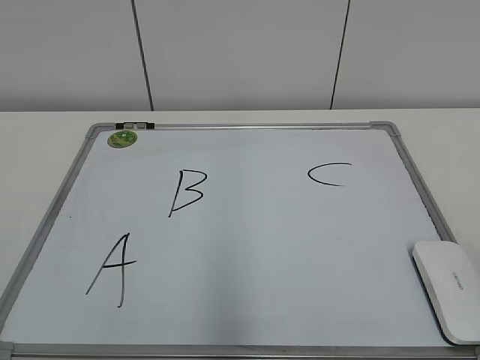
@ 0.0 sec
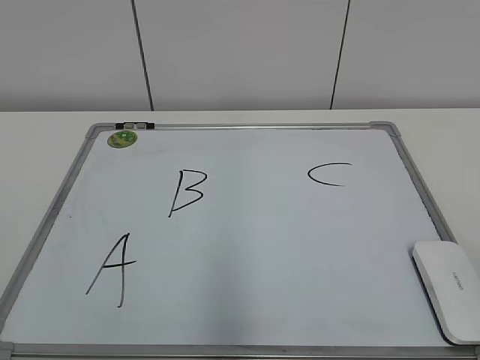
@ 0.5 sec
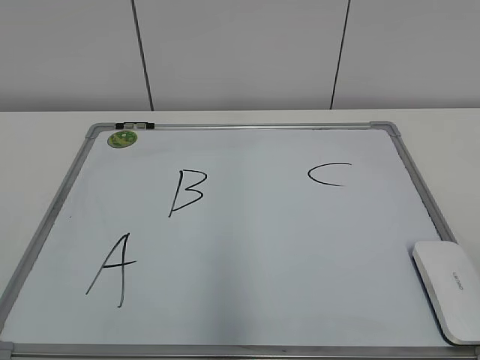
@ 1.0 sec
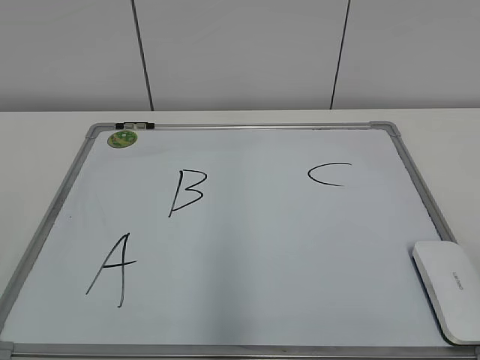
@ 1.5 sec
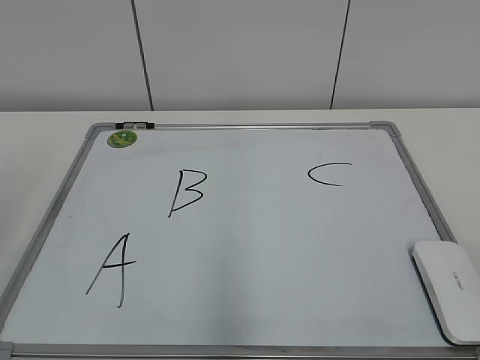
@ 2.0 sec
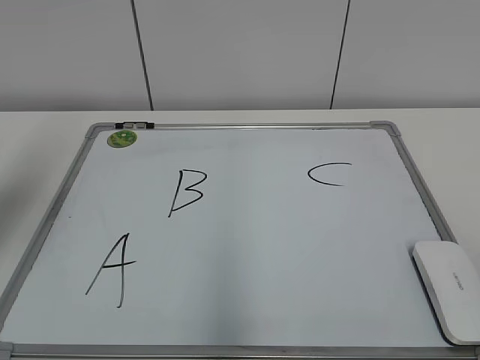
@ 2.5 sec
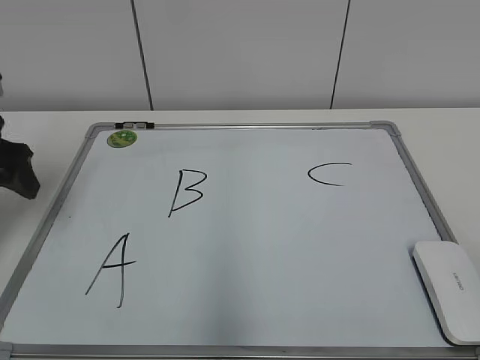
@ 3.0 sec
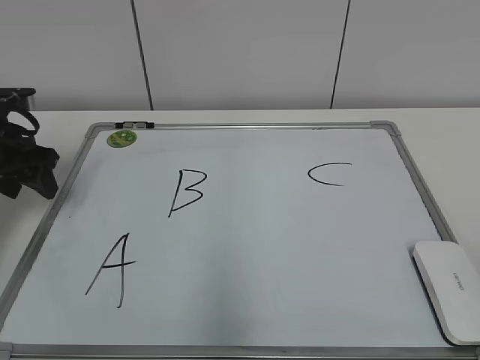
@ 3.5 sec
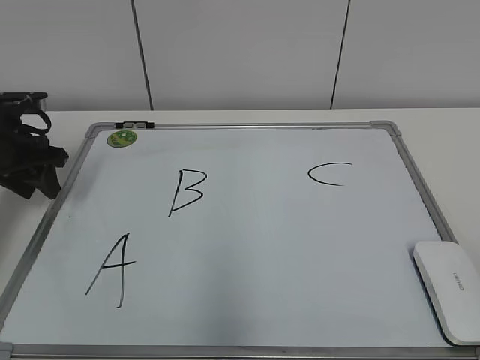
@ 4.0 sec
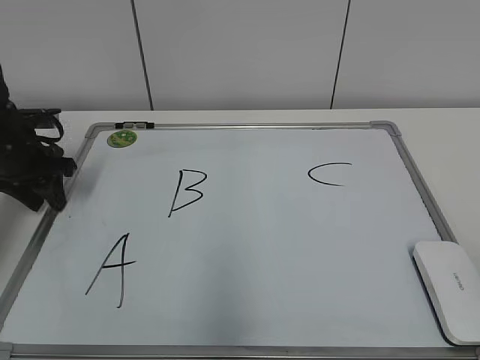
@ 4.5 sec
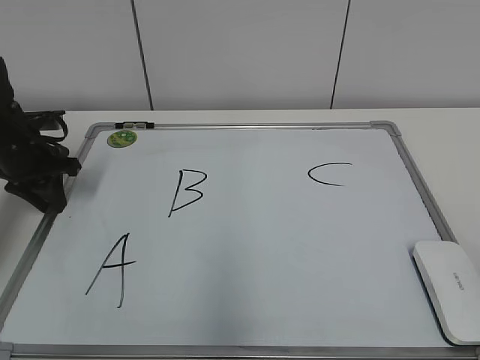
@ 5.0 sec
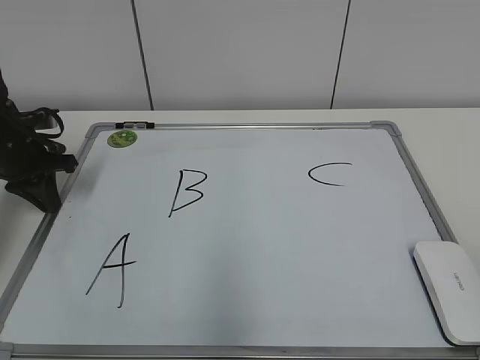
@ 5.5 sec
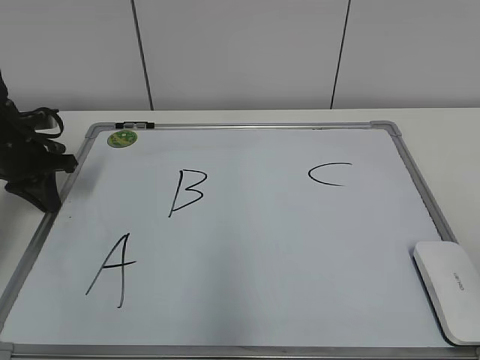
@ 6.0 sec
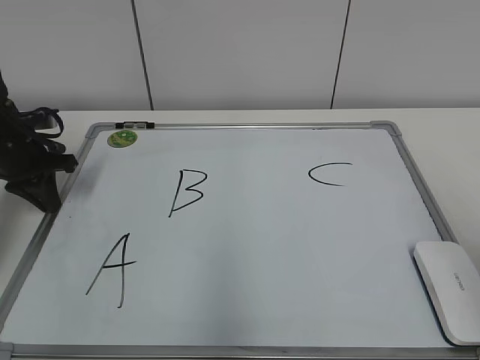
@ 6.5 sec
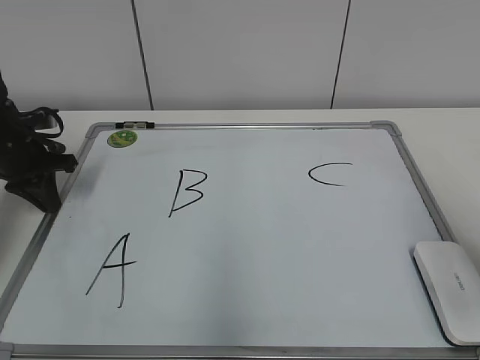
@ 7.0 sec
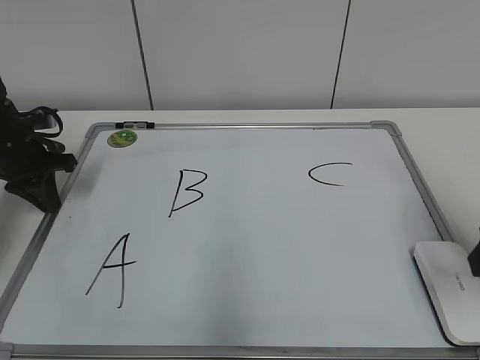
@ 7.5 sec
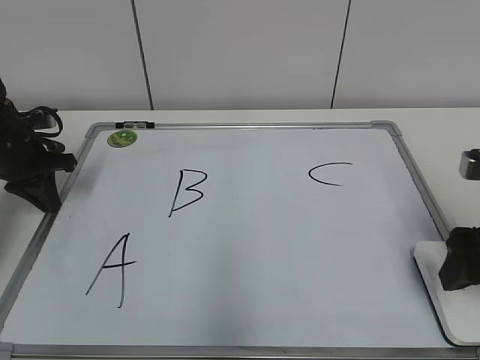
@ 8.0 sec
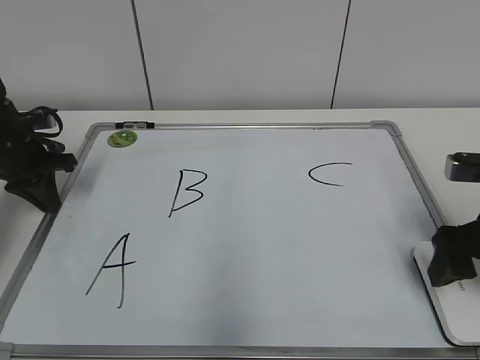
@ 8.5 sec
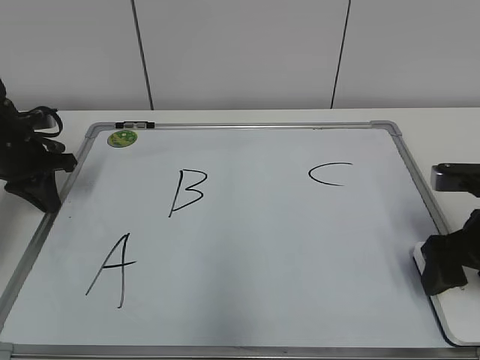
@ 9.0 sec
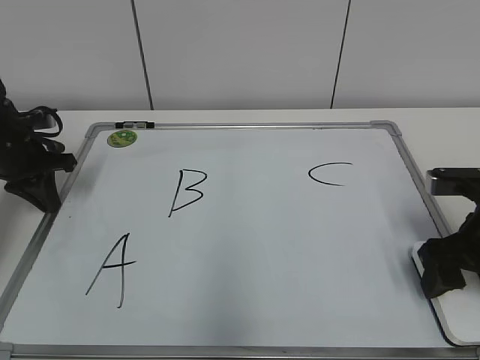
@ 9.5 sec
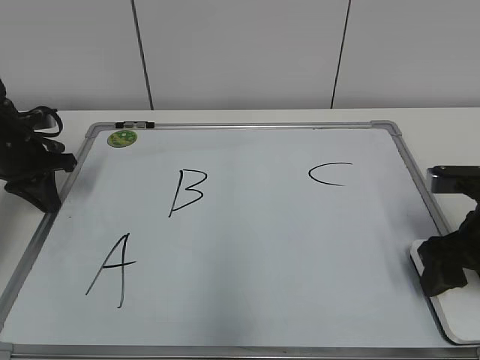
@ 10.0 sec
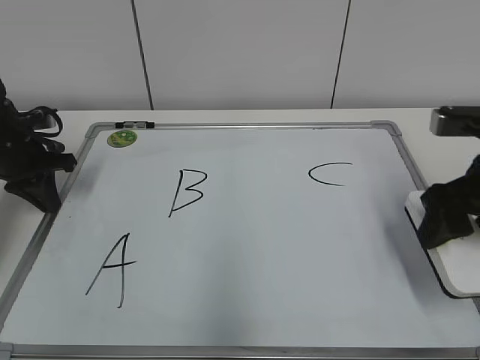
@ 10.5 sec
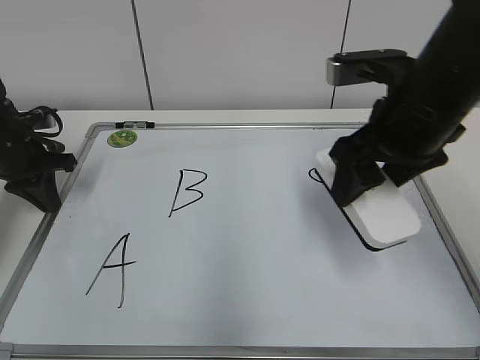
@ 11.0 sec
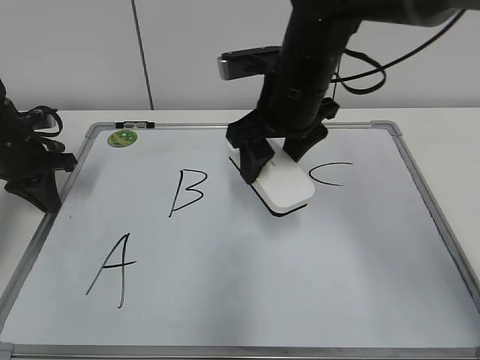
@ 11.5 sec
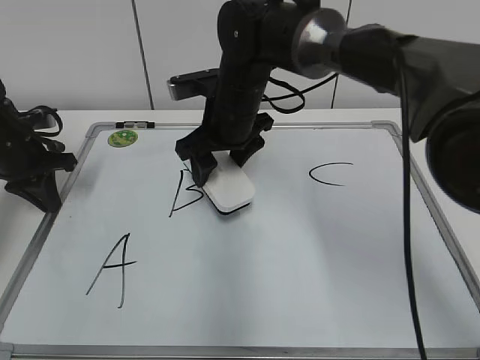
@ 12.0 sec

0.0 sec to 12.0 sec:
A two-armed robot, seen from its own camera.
Task of the whole recording: pick up the eraser on the blackboard and erase the letter "B".
Step, 0.0 sec to 5.5 sec: Hold the drawing board steady with your left hand.
Step, 6.0 sec to 9.5 sec: Grab the eraser with your right hand.
2.0 sec to 4.0 sec: The left gripper is displaced forward and downward by roughly 35 cm, and closes.
4.0 sec to 6.0 sec: The left gripper closes its fingers.
6.0 sec to 8.0 sec: The right gripper moves forward and downward, roughly 25 cm, and opens its fingers.
8.0 sec to 10.0 sec: The right gripper closes up.
10.0 sec to 12.0 sec: The right gripper shifts approximately 30 cm to the left and forward.

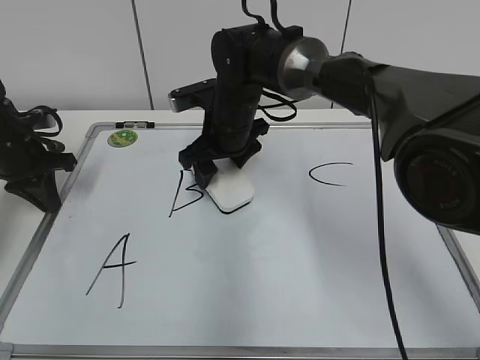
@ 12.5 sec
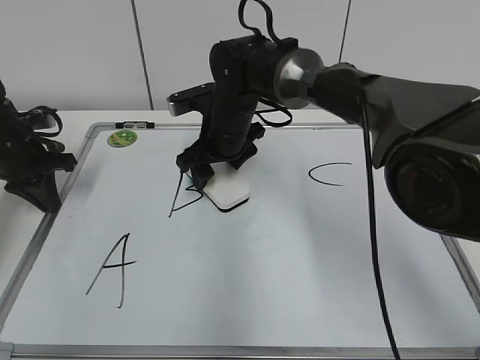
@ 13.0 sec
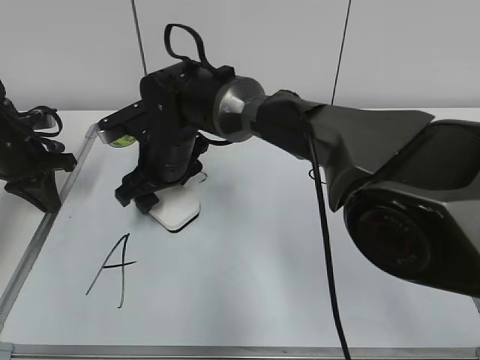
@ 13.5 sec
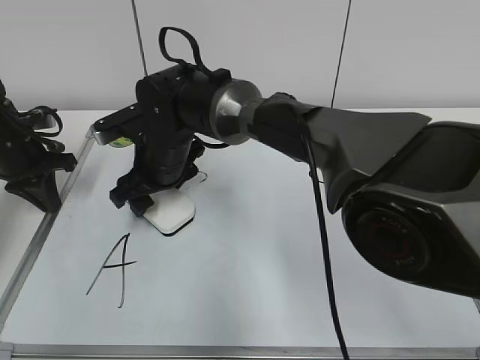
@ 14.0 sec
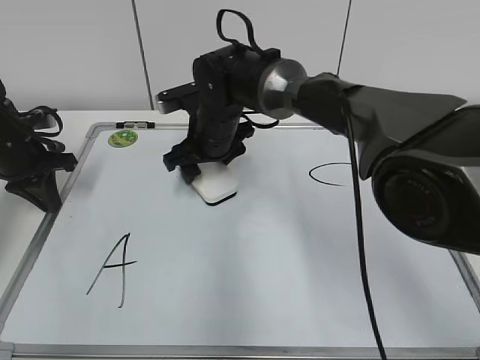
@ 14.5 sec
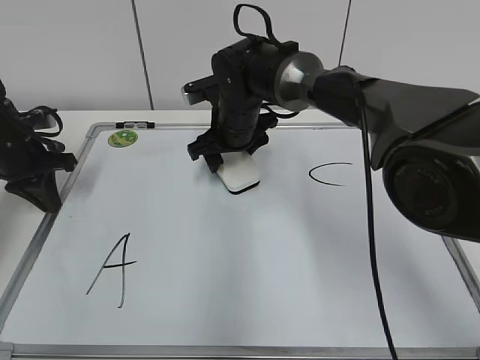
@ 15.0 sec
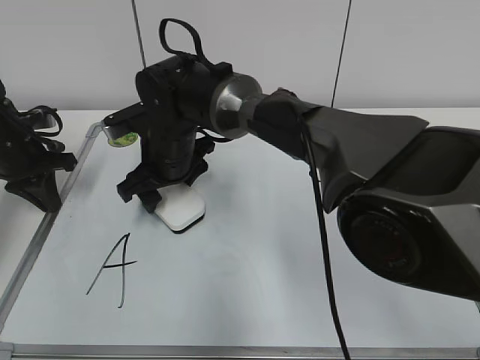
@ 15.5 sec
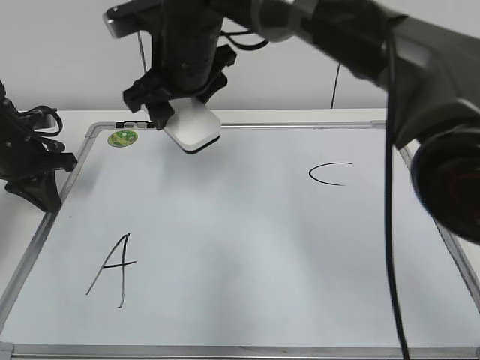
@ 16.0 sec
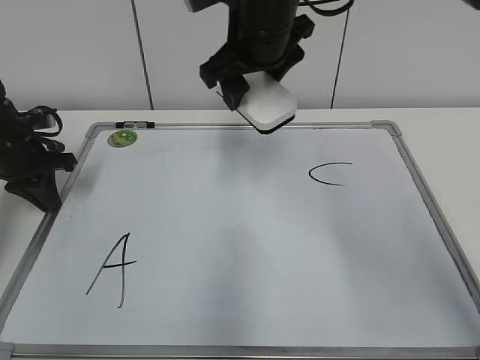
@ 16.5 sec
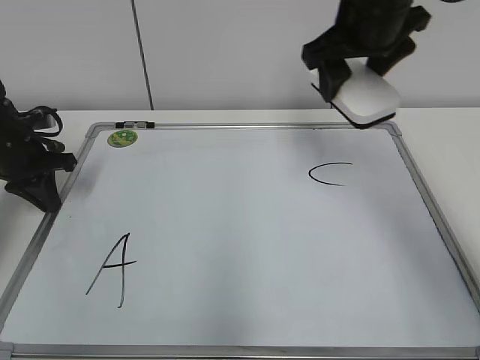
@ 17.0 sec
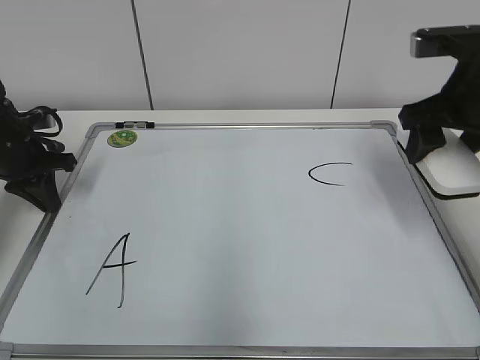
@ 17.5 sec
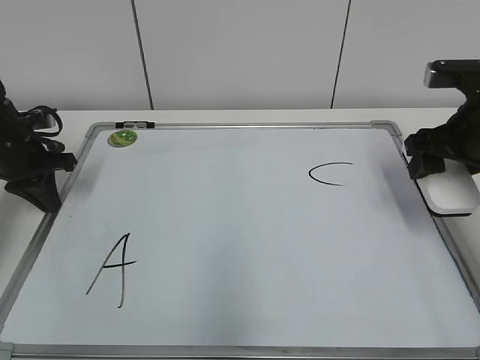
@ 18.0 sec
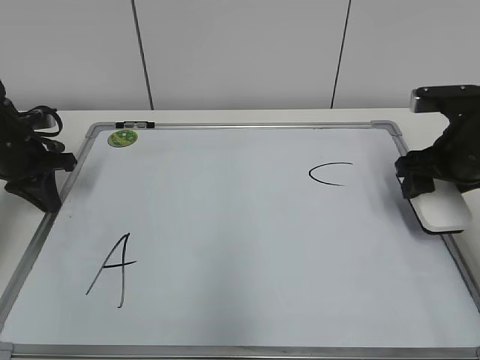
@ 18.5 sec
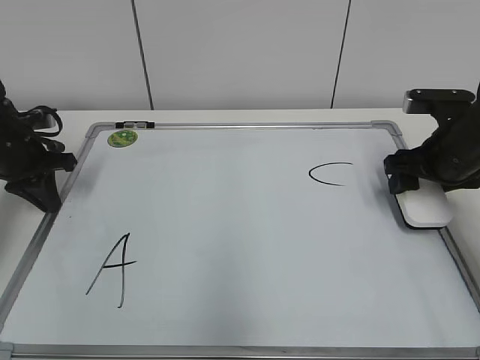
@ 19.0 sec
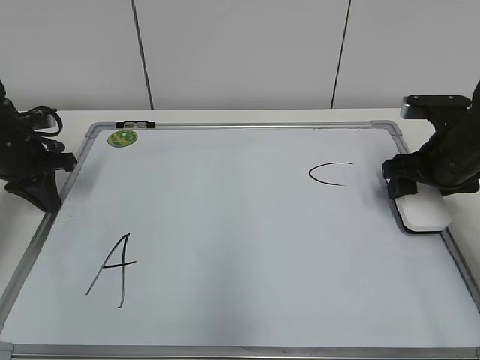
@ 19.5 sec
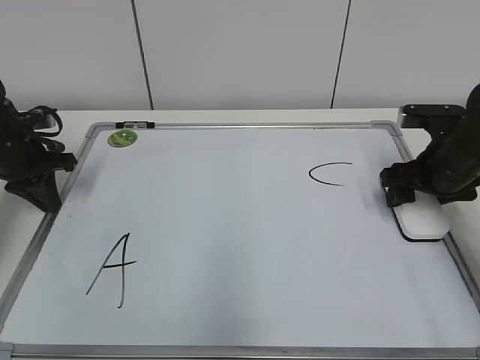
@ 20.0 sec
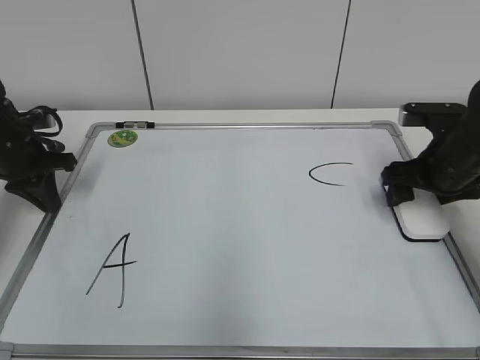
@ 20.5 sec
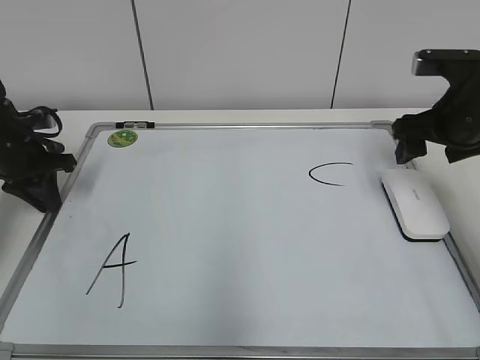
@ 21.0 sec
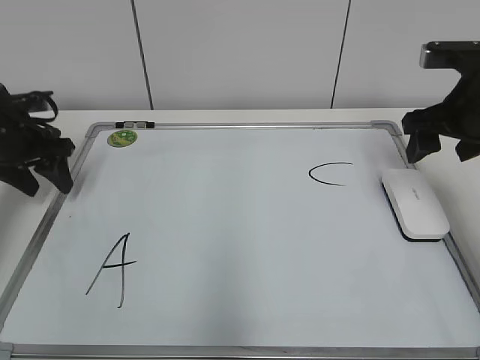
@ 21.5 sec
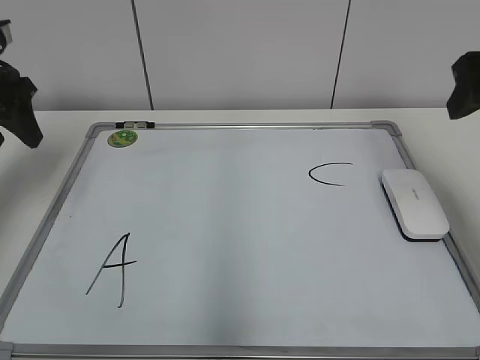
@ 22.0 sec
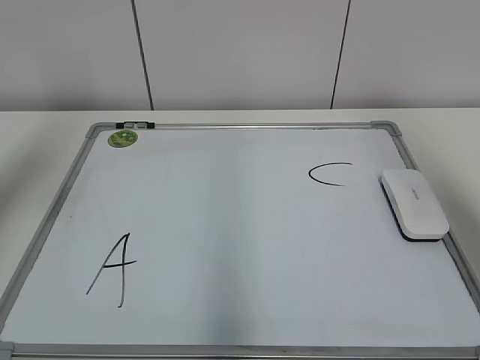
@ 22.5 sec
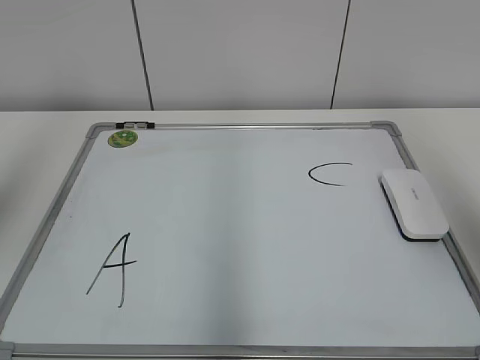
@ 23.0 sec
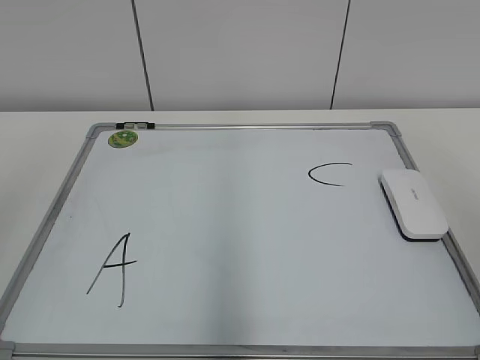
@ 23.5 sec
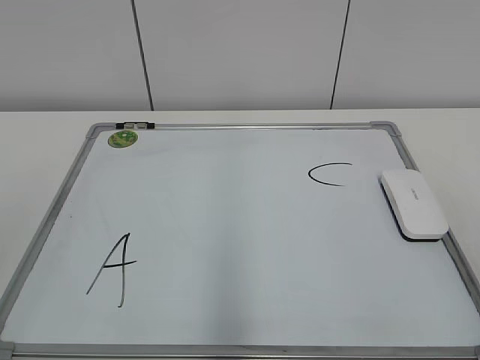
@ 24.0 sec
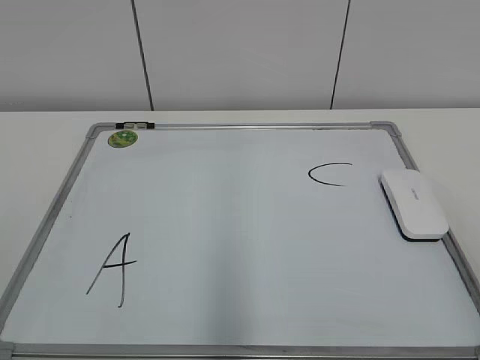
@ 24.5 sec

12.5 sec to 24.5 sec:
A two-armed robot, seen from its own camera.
Task of the whole recording: pick up the eraser on the blackboard and erase the letter "B".
Step, 12.5 sec to 15.5 sec: Erase the letter B with your right hand.
Step, 16.0 sec to 19.5 sec: Put down the eraser with your right hand.
12.5 sec to 14.5 sec: The right gripper moves some 10 cm to the left and comes back.
14.5 sec to 16.5 sec: The right gripper moves upward, about 15 cm.
16.5 sec to 18.5 sec: The right gripper is displaced to the right and downward by approximately 25 cm.
18.5 sec to 20.5 sec: The right gripper opens.
20.5 sec to 22.5 sec: Both grippers move upward and backward, approximately 25 cm. The left gripper opens its fingers.
22.5 sec to 24.5 sec: The left gripper goes approximately 30 cm backward. Meanwhile the right gripper heads backward and downward, covering approximately 25 cm.

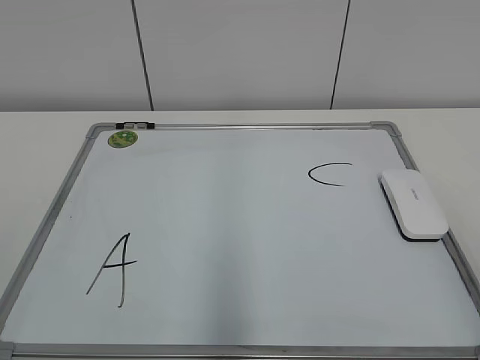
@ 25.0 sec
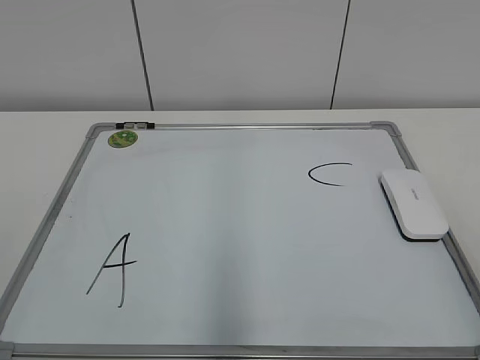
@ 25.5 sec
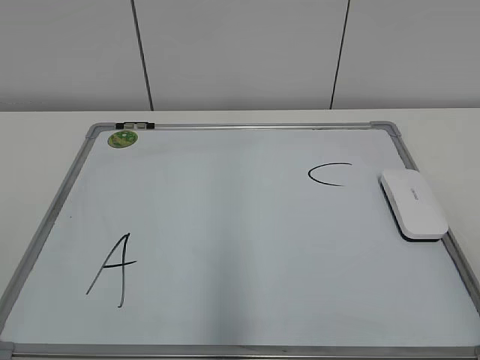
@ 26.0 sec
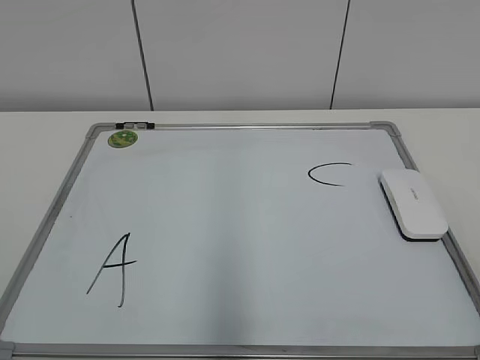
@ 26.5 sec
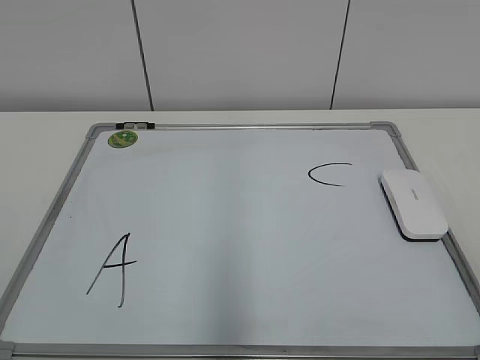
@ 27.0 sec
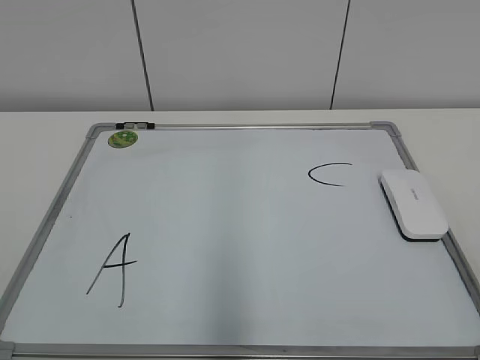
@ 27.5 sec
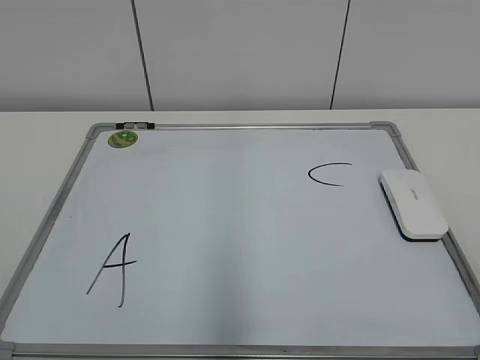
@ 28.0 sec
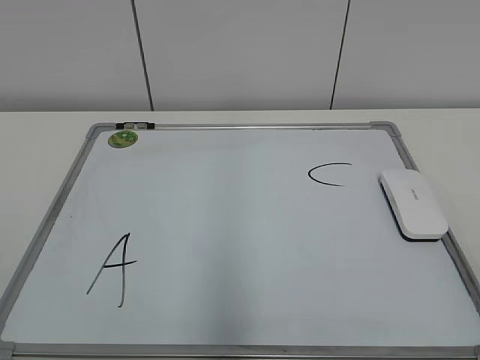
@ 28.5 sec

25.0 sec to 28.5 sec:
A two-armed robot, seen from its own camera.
Task of the whole recording: pick up the eraser on the blackboard and erase the letter "B".
27.0 sec to 28.5 sec: Neither gripper changes place.
